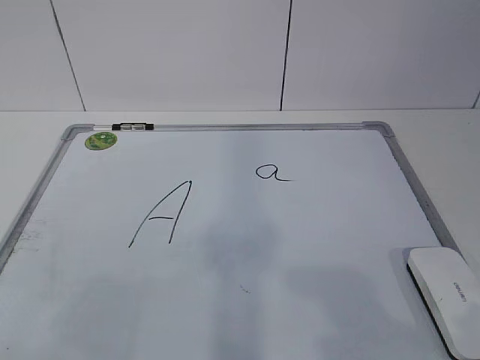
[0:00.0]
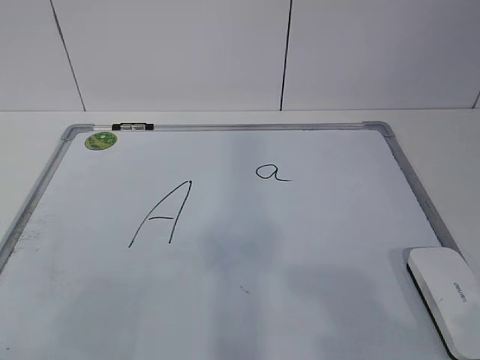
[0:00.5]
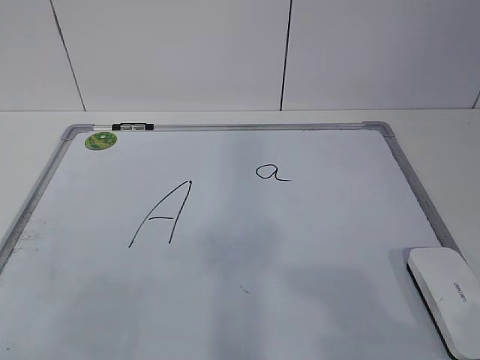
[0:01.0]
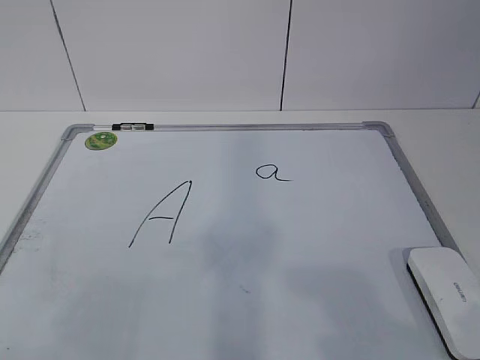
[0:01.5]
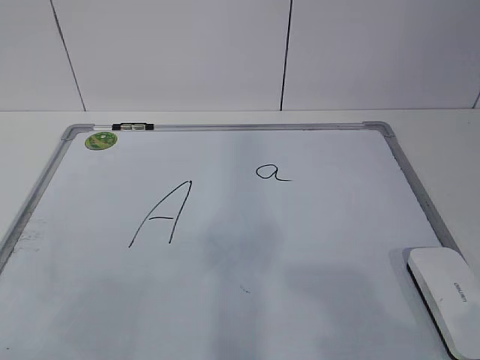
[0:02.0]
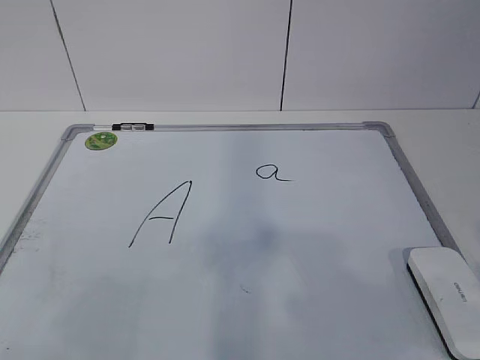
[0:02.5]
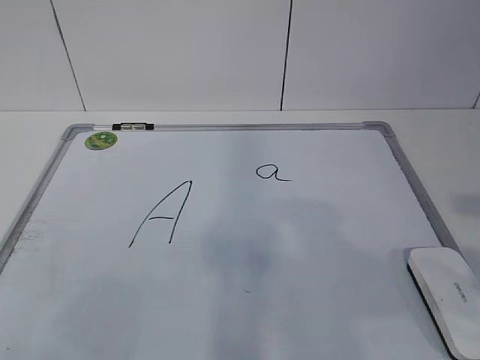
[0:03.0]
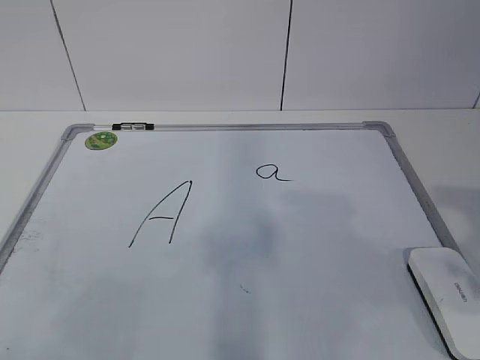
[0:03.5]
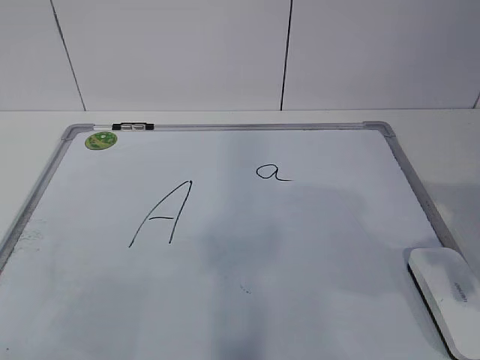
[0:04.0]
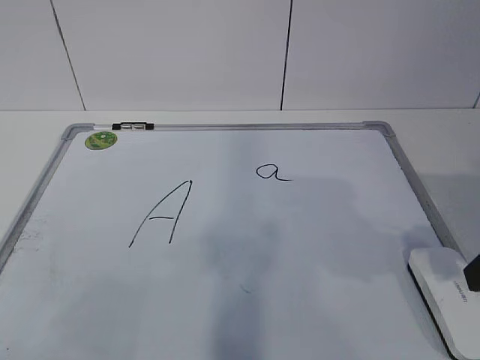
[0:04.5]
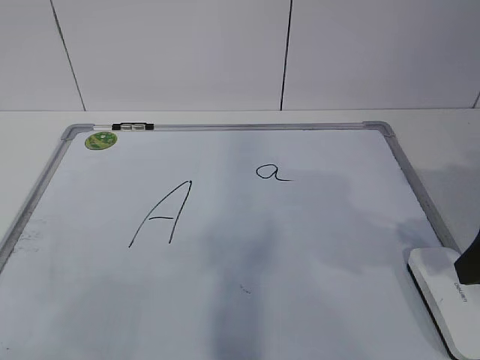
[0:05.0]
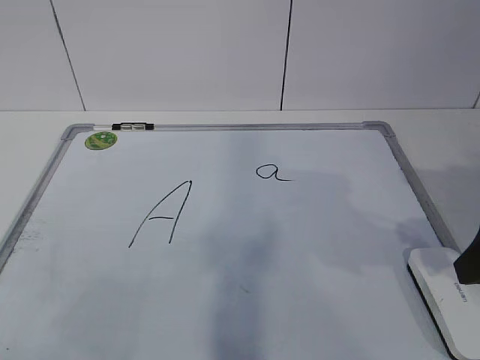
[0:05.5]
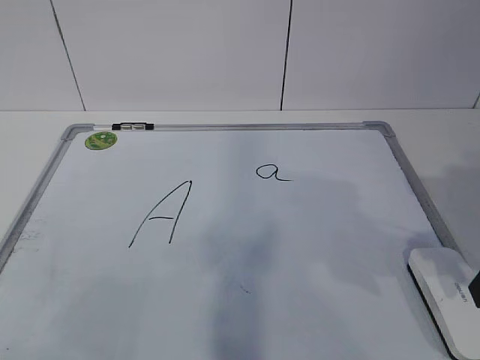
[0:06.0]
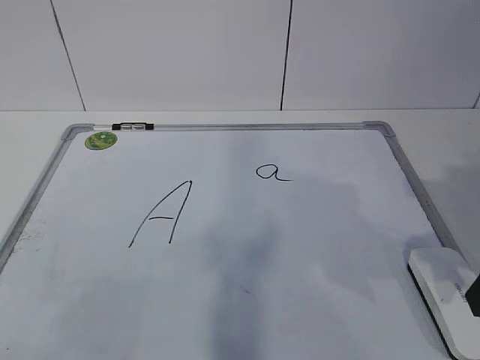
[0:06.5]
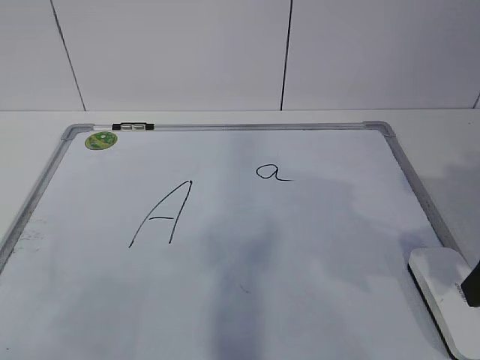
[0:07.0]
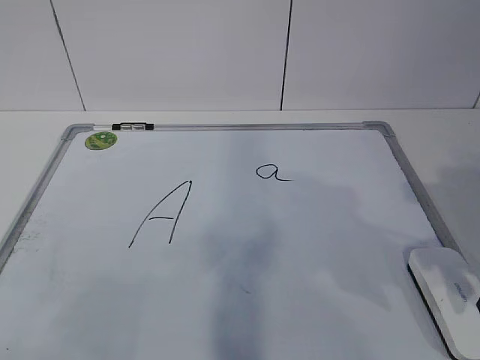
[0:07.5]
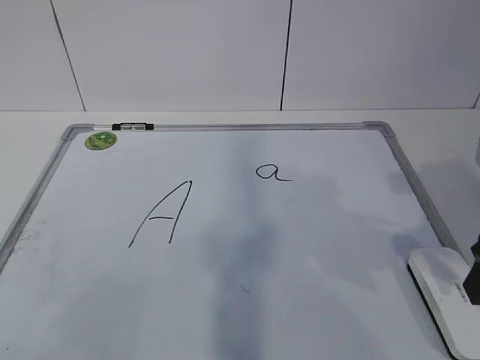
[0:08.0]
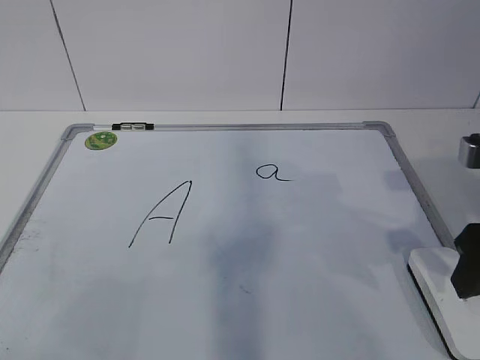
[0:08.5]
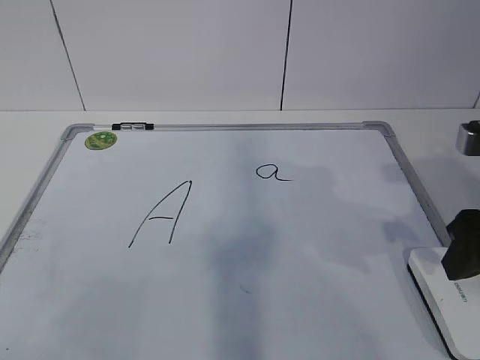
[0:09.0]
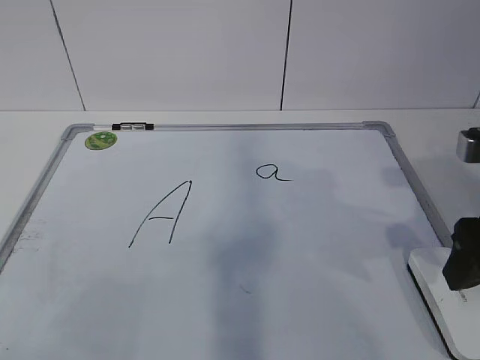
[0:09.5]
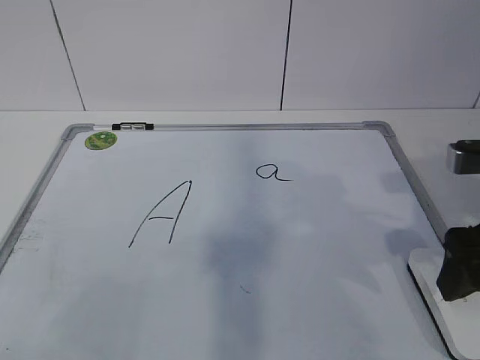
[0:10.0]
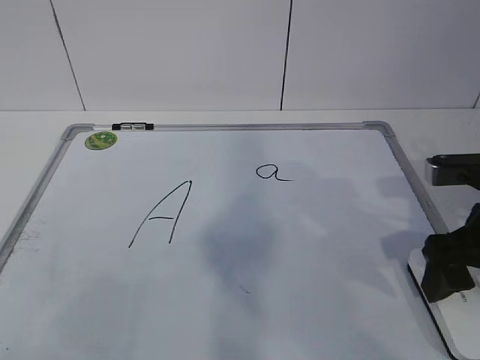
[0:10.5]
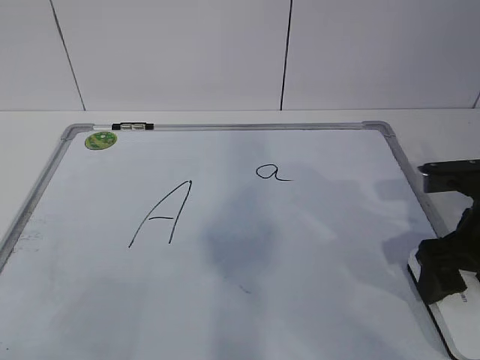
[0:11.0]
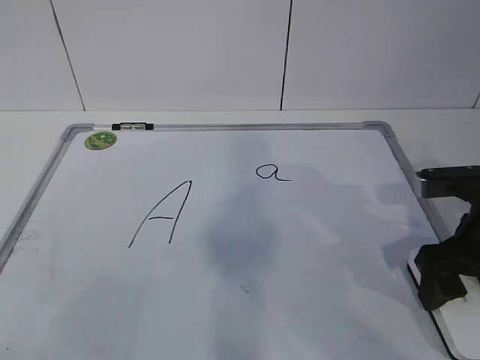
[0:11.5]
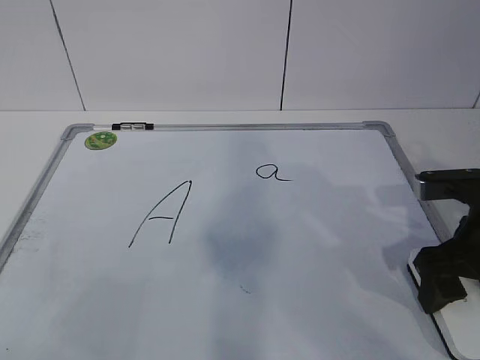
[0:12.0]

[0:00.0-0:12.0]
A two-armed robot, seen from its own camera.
Task of the whole recording: pick up the eraser on the blackboard and erase the letter "a".
Step, 0.0 to 10.5 s: Grab the eraser with your right hand.
2.0 to 4.0 s: The right gripper is displaced forward by about 15 cm.
8.0 to 10.0 s: The right gripper opens.
10.0 to 12.0 s: The right gripper shifts about 5 cm downward, and closes up.

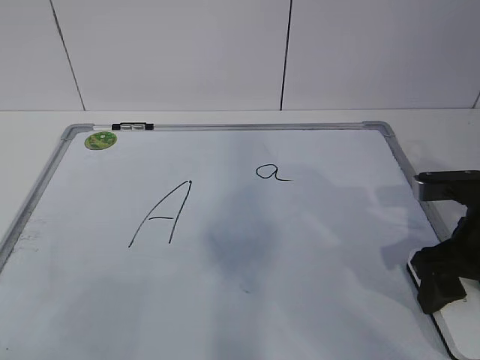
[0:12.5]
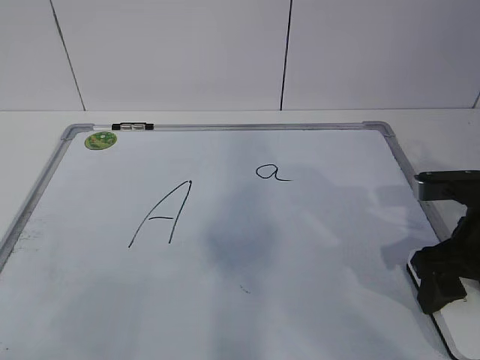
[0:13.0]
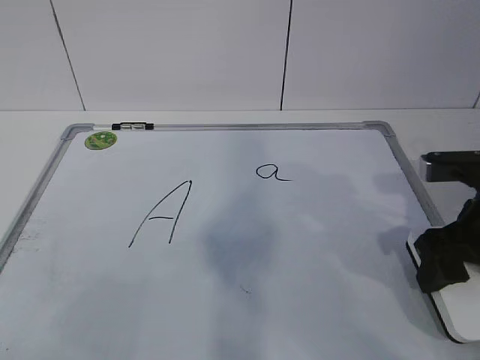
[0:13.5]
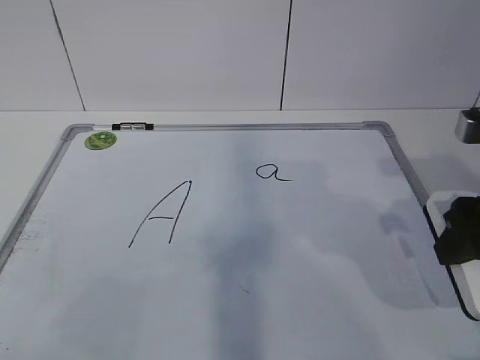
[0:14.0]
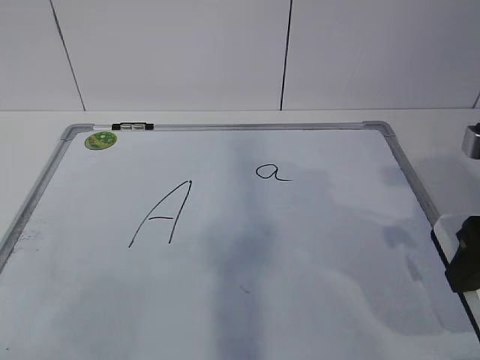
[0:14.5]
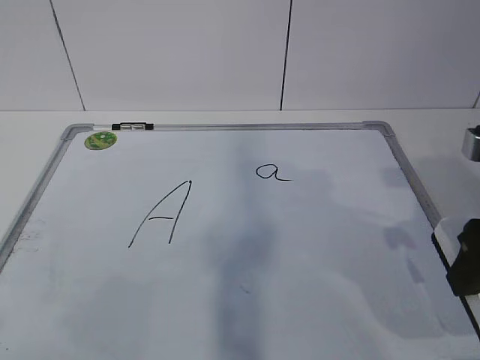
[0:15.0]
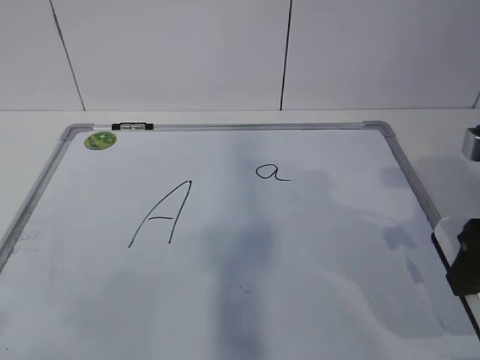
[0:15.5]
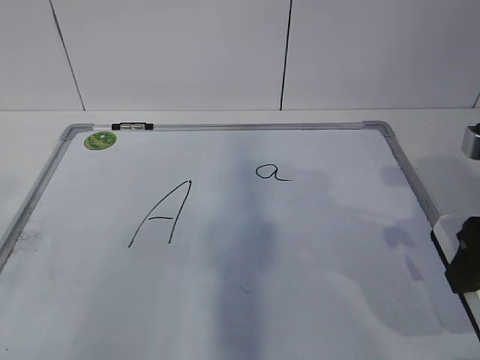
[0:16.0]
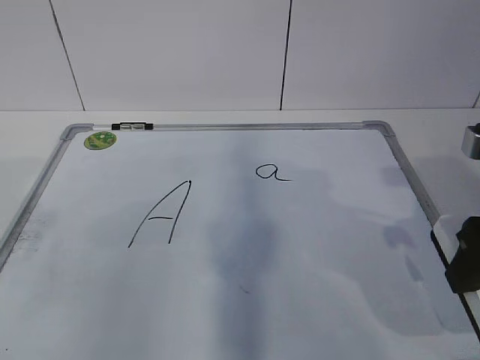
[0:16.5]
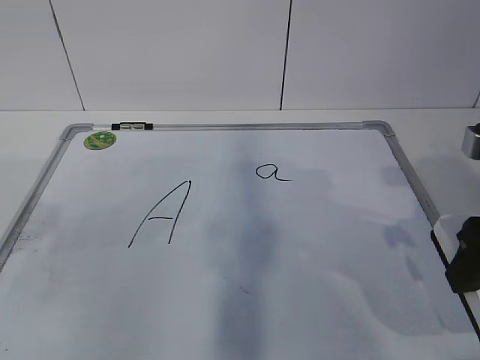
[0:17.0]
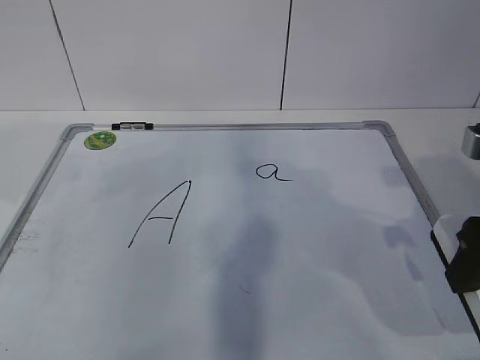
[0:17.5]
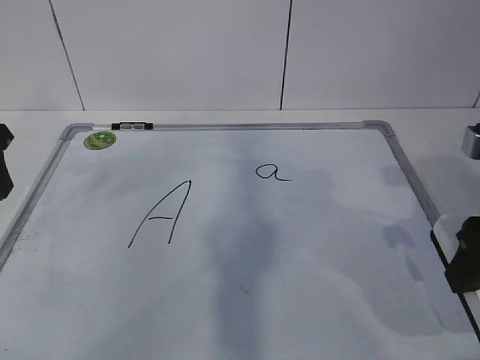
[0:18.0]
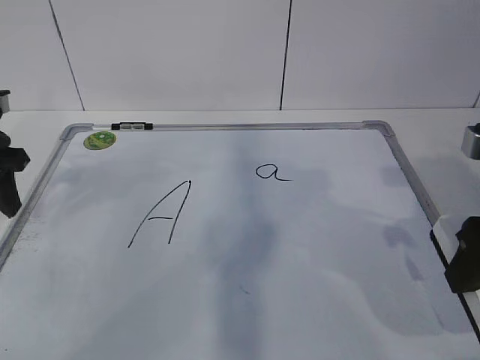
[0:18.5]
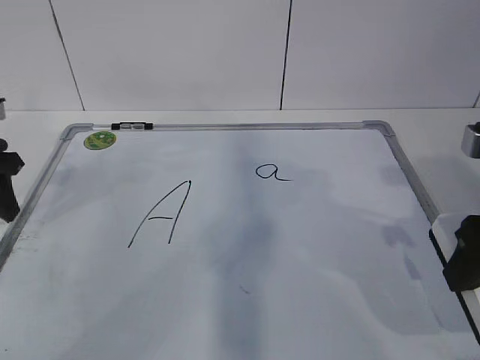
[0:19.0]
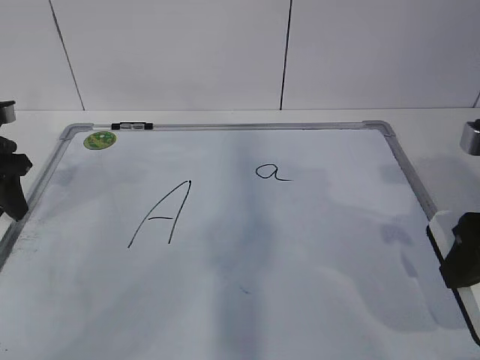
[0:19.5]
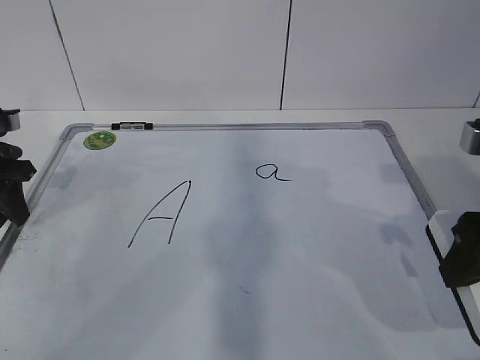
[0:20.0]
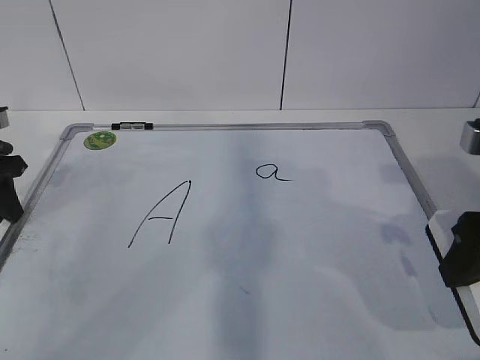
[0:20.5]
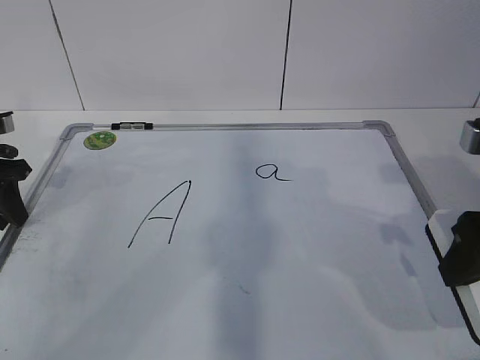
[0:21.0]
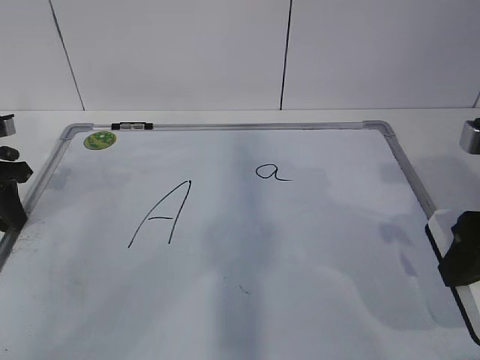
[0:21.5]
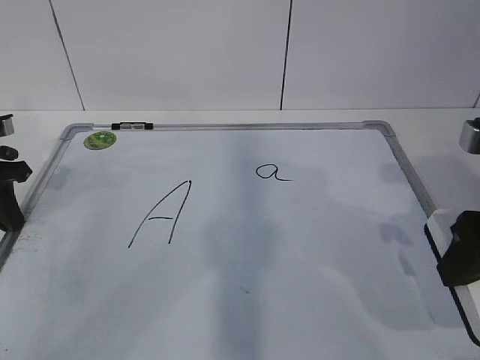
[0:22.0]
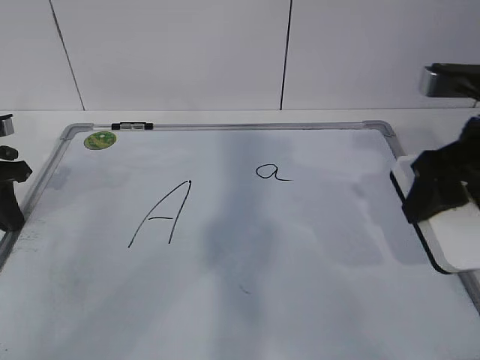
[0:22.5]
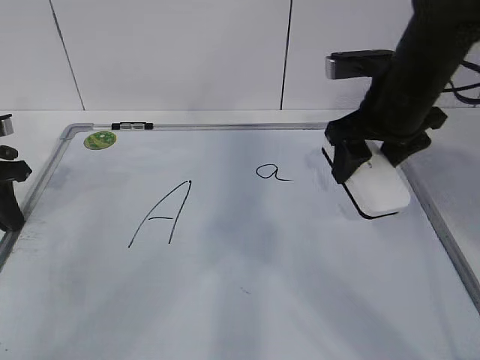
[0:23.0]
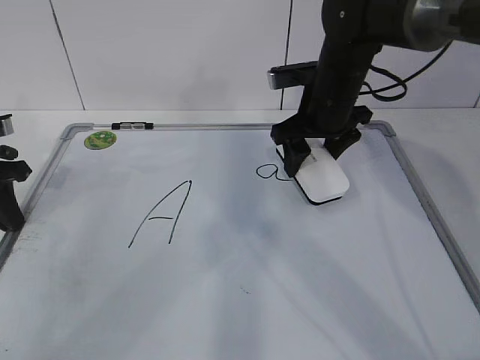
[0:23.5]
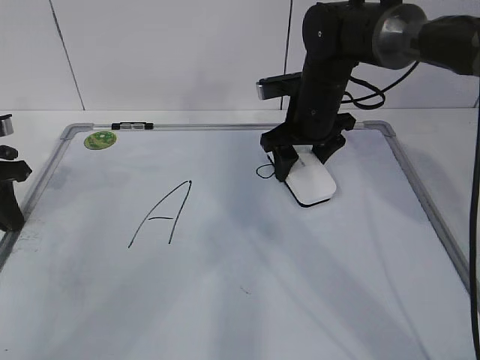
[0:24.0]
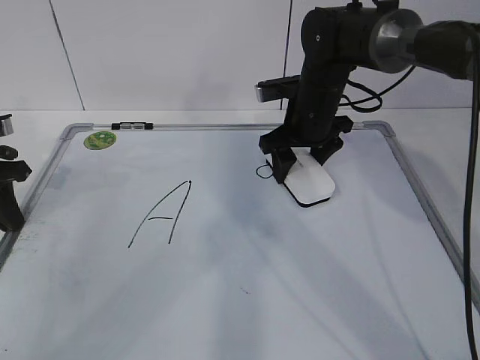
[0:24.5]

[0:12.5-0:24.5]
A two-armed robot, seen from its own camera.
Task of the whole recording: pick up the eraser on the blackboard and erase the letter "a".
Step, 12.5 to 18.0 s: Hold the drawing board steady with your left hand.
Step, 18.5 to 23.5 s: Erase the letter a with your right hand.
12.5 to 14.5 s: The right gripper goes roughly 10 cm upward.
16.5 to 18.5 s: The left gripper moves forward and downward, roughly 20 cm.
18.5 to 20.5 s: The left gripper ends up about 5 cm from where it was.
20.5 to 22.5 s: The right gripper moves forward, roughly 5 cm; the left gripper closes its fingers.
22.5 to 24.5 s: The right gripper moves forward, to the left and downward, roughly 25 cm.

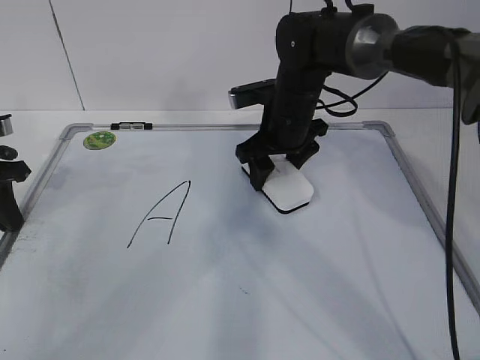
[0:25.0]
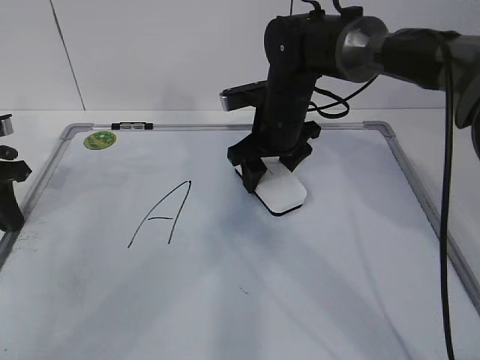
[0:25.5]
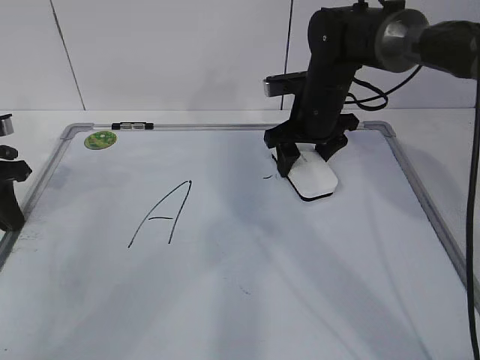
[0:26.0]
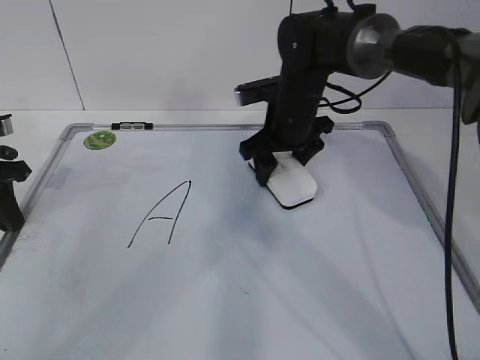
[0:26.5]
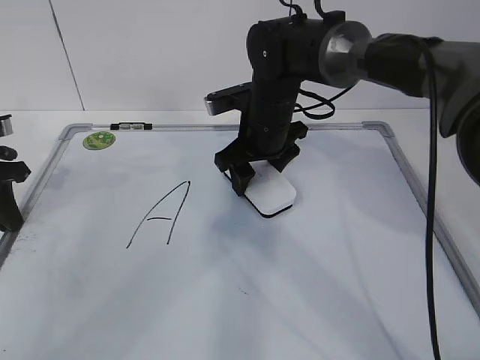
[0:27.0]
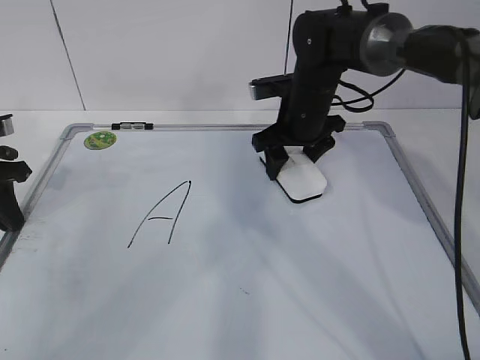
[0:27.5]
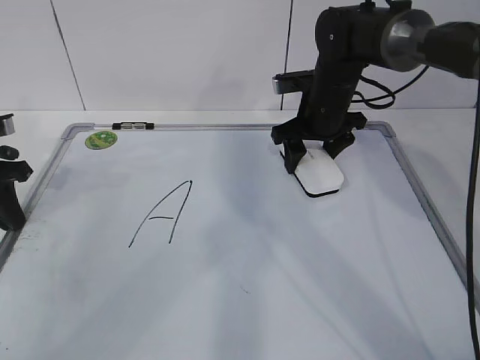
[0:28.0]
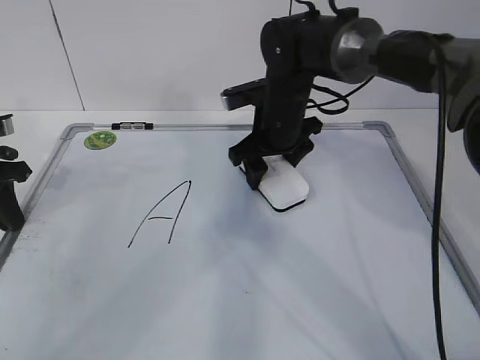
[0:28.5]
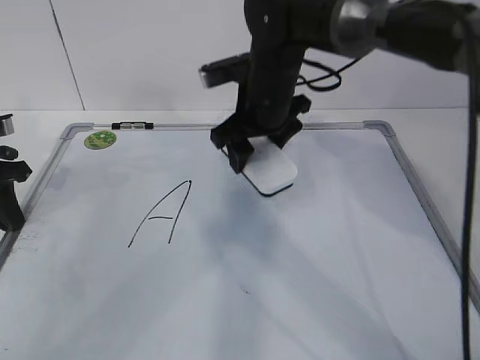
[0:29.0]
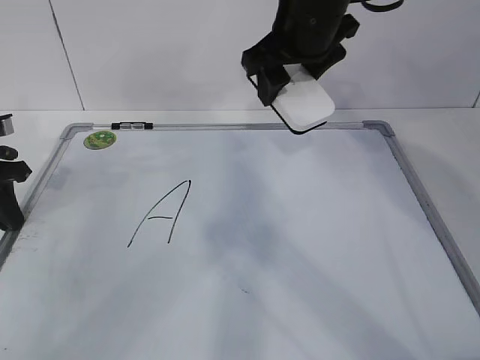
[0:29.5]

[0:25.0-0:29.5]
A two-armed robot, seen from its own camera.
Task of the whole recording: pick up the eraser on the blackboard and erase the letter "a".
Step, 25.0 to 27.5 s: Put down the eraser with your right hand.
25.0 to 27.0 s: The grippers make only small movements.
27.0 to 29.5 s: The right gripper is displaced upward by about 15 cm.
